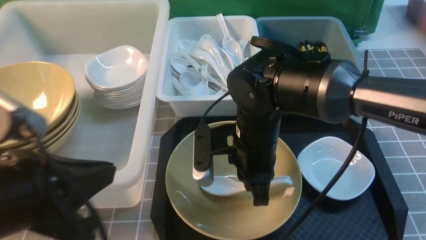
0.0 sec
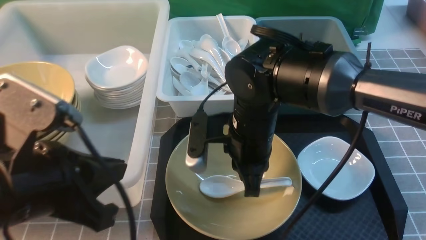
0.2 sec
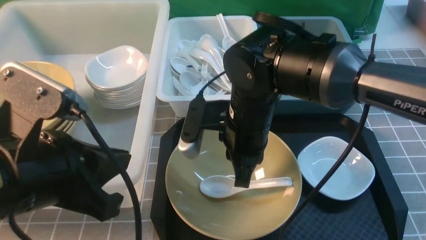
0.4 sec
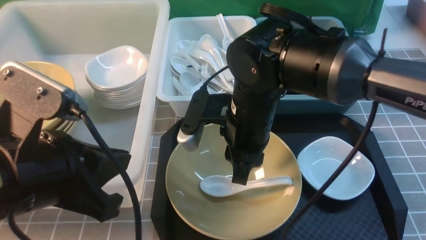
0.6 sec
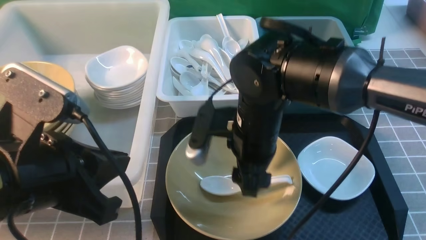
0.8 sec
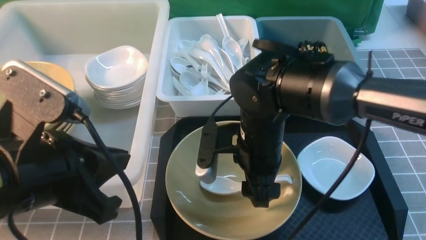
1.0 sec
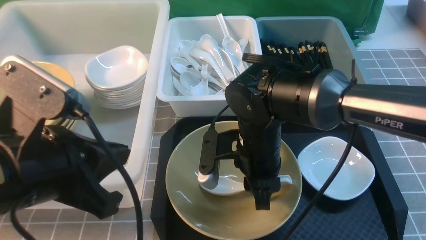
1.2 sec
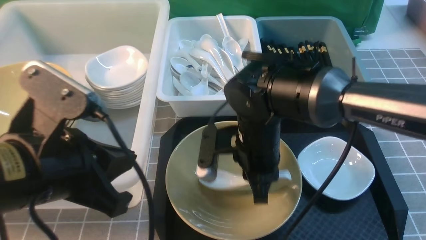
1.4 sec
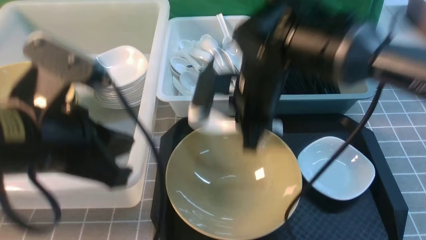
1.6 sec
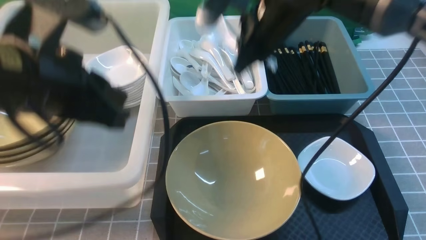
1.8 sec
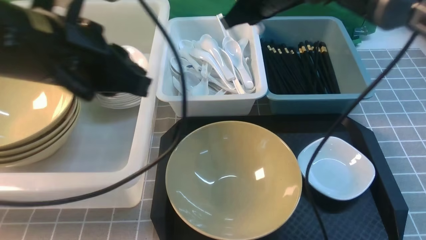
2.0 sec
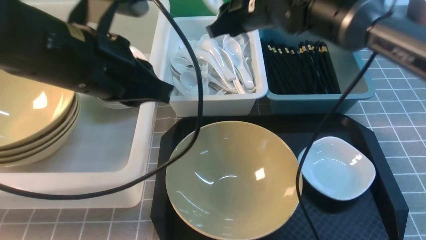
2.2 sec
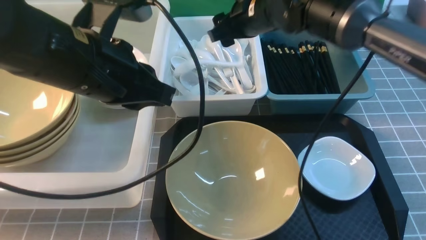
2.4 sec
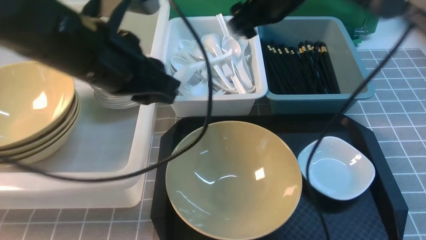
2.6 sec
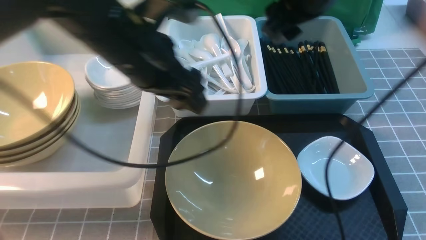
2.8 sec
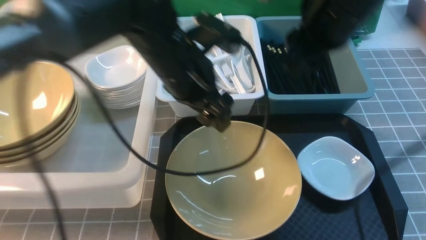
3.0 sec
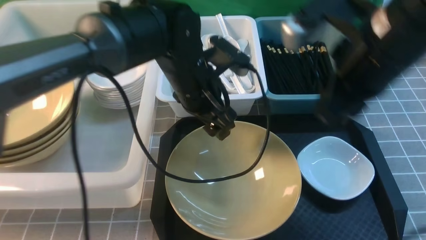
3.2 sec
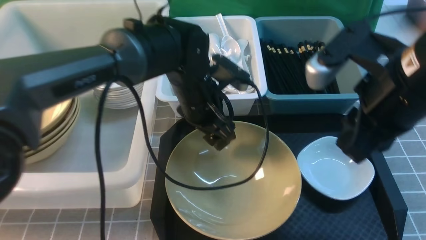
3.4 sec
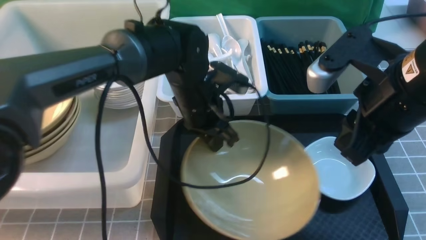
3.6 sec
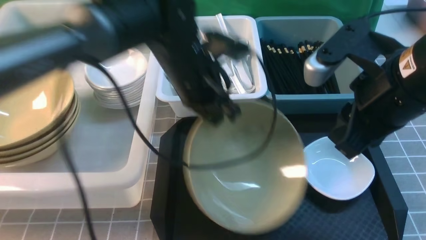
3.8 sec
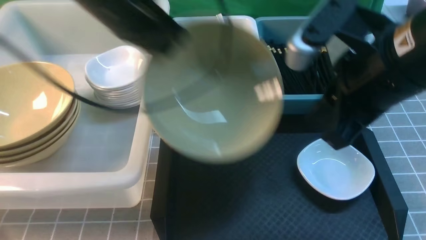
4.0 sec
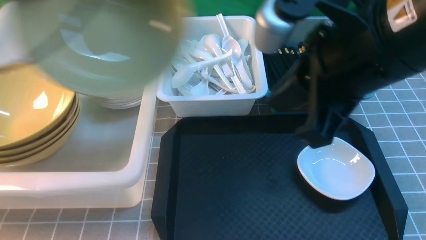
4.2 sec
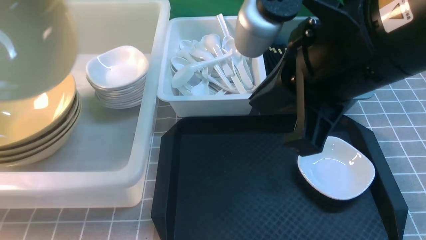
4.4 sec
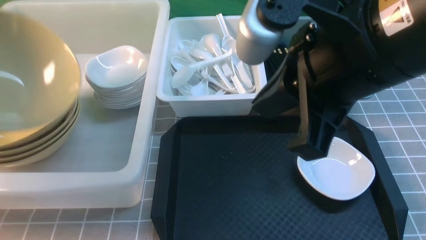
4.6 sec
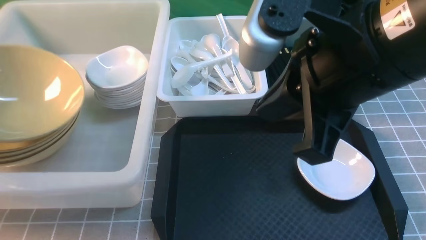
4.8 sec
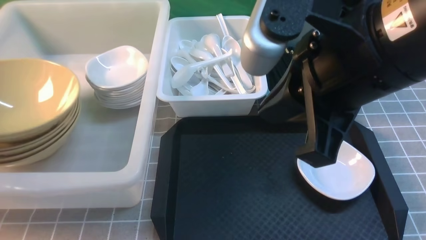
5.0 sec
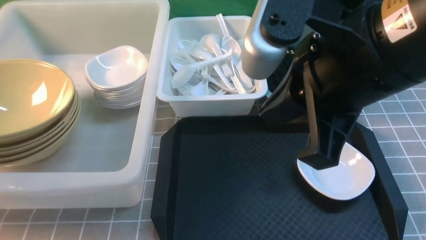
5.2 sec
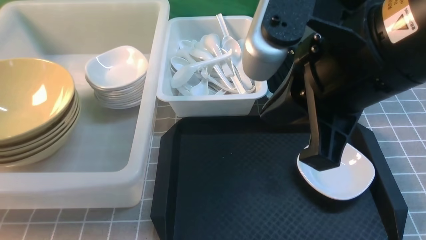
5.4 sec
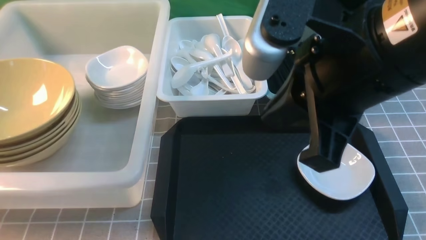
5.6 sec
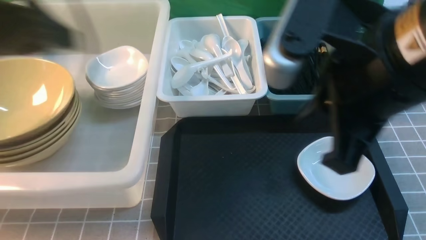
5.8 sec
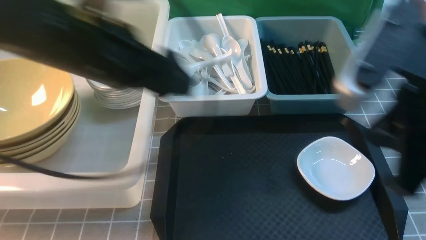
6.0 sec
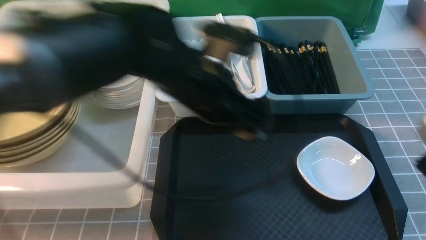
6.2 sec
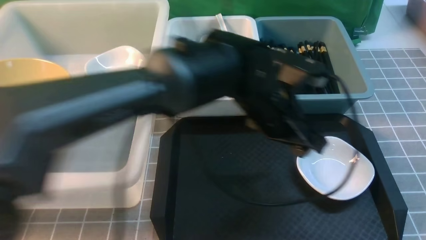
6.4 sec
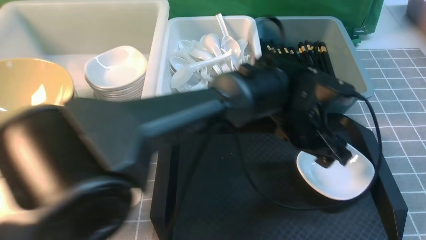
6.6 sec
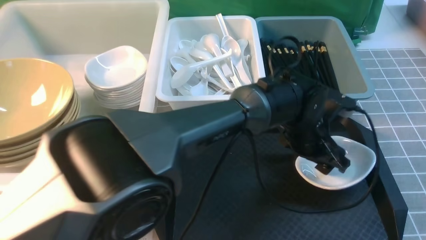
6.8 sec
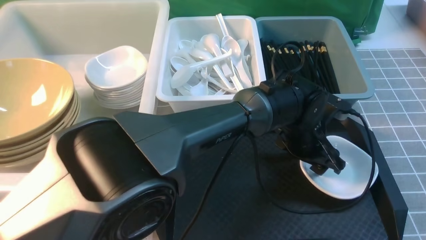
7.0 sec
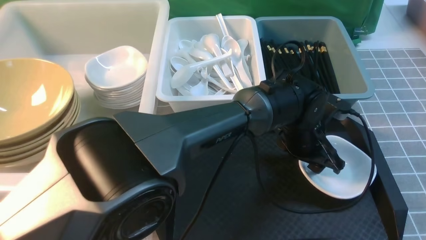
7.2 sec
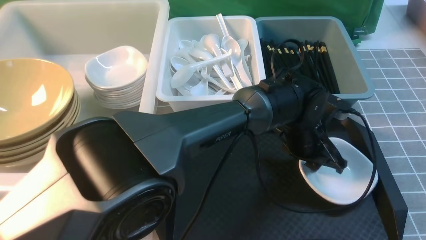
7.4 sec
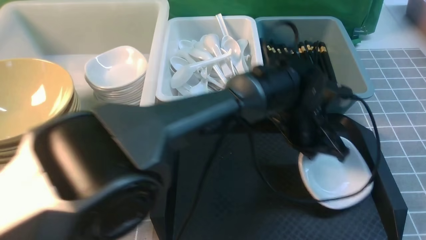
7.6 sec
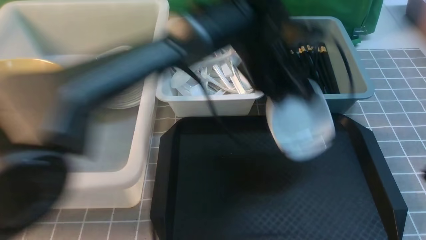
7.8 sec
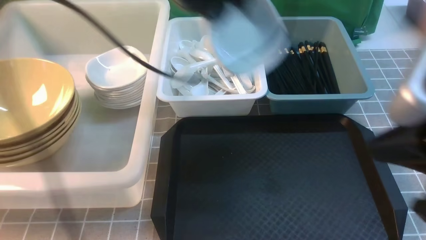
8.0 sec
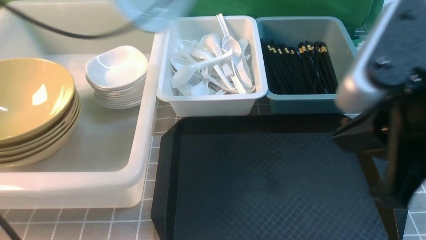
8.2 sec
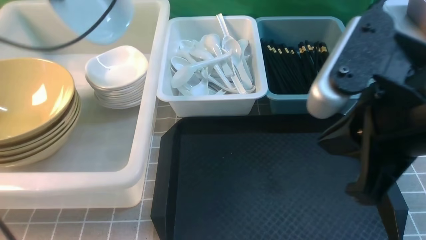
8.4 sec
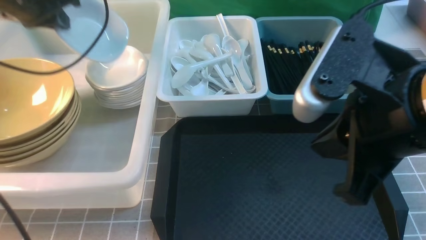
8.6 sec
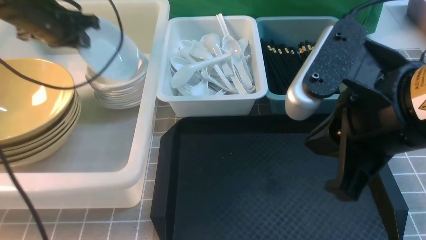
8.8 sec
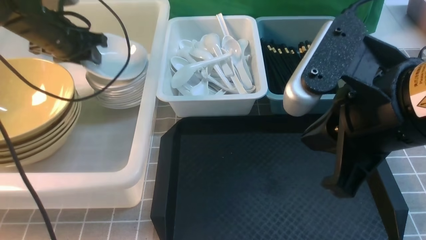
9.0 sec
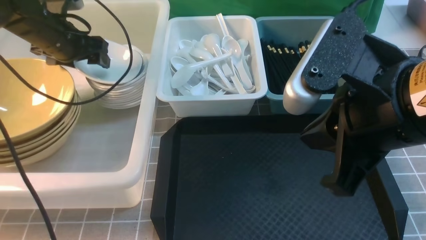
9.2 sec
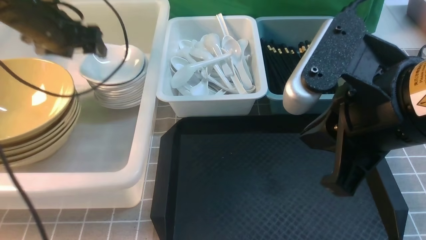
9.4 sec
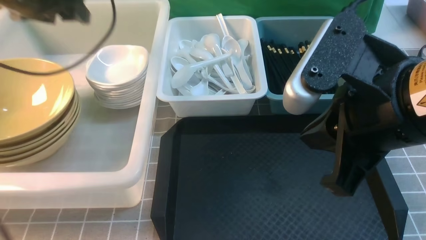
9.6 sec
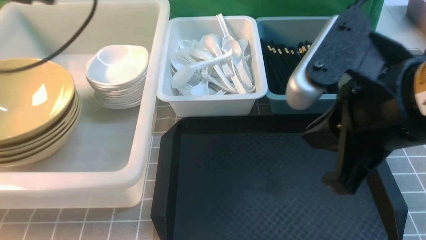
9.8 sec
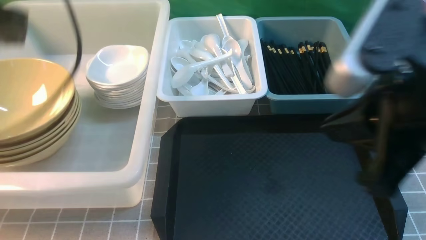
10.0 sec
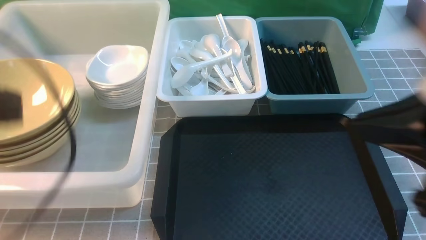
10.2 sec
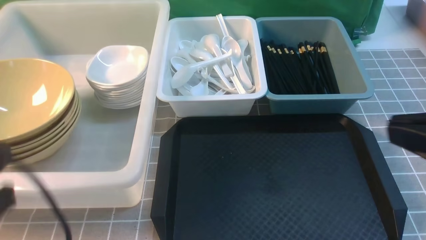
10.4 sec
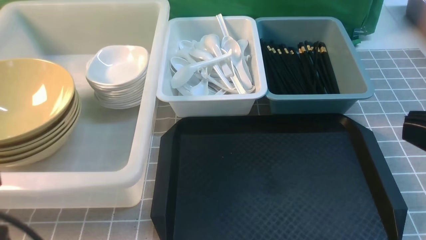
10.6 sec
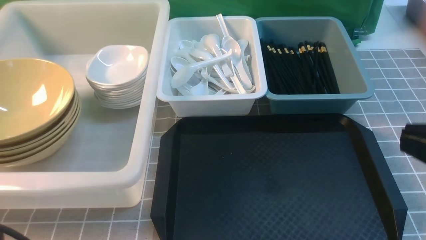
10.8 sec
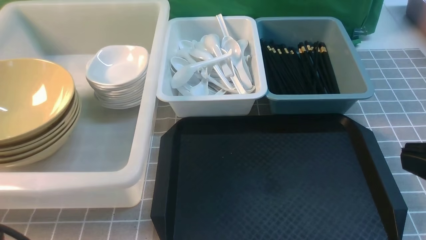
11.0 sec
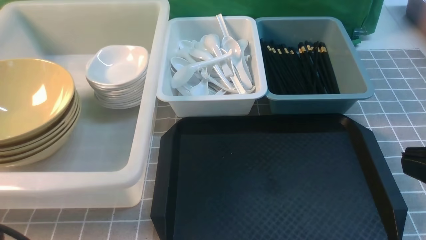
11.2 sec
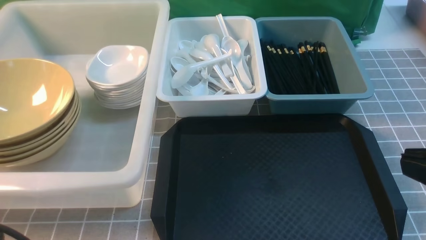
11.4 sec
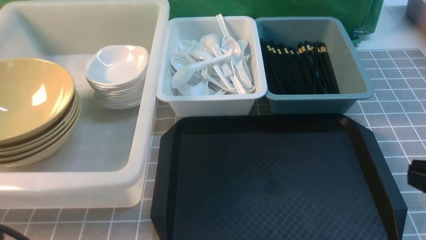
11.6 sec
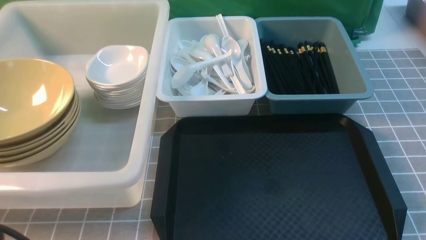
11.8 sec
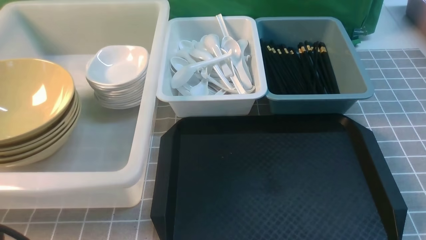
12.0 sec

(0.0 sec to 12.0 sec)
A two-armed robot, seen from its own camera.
Task of the whole recording: on grey table put chopsticks spoon bowls plates into blue grey white boxes.
Step, 0.0 sec - 1.4 sec: use the right arm to grab the soup spoon in the middle.
Step, 1.6 sec - 2.4 sec: use the right arm to put the soup spoon into the small storage box in the middle.
Step, 2.6 sec - 3.8 sec: use the left arm to grab the yellow noodle bowl on the left.
Step, 4.0 sec - 5.0 sec: use the left arm to put the noodle bowl into the large storage box on the left.
Step, 5.2 sec - 7.6 sec: use the left arm to grab the plate.
Step, 7.8 sec - 9.6 sec: use the left arm to put the plate into the large storage box on the left.
0.0 sec - 1.6 sec: The left gripper heads forward, covering roughly 5 cm; the right gripper is displaced upward and forward by some 10 cm, and opens and closes again.
1.6 sec - 3.0 sec: The left gripper moves forward and to the right, about 20 cm, and opens its fingers. The right gripper shifts some 15 cm upward and to the right, reaches approximately 10 cm forward, then returns, and opens up.
3.0 sec - 4.4 sec: The right gripper is displaced backward by approximately 10 cm, and closes its fingers. The left gripper goes approximately 30 cm to the left, and closes up.
4.4 sec - 6.0 sec: The right gripper heads to the right, covering some 10 cm; the left gripper moves to the right, roughly 25 cm, and opens its fingers.
6.0 sec - 7.6 sec: The right gripper goes some 10 cm to the right and backward; the left gripper goes approximately 25 cm to the right and downward, and closes up.
7.6 sec - 9.0 sec: The left gripper travels to the left by roughly 40 cm, and opens up. The right gripper travels to the left and forward by some 15 cm.
9.0 sec - 10.4 sec: The left gripper travels backward by some 35 cm, and closes its fingers, while the right gripper travels to the right and backward by some 10 cm.
10.4 sec - 12.0 sec: The right gripper moves downward and to the right, roughly 15 cm.

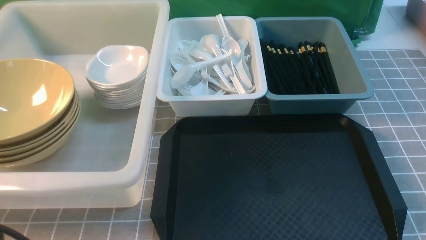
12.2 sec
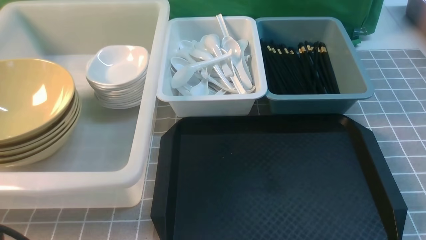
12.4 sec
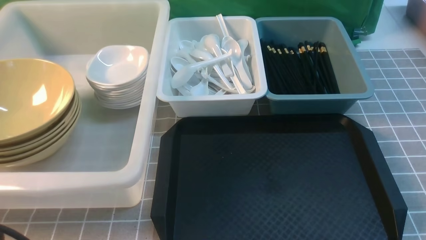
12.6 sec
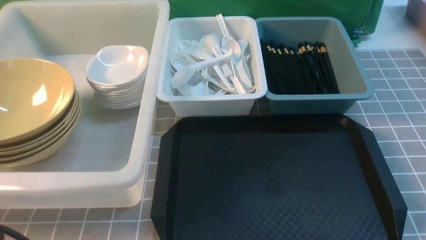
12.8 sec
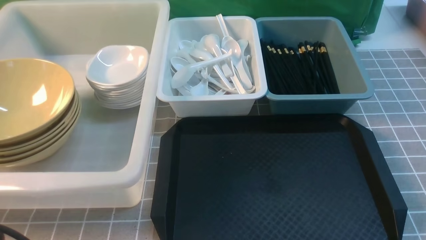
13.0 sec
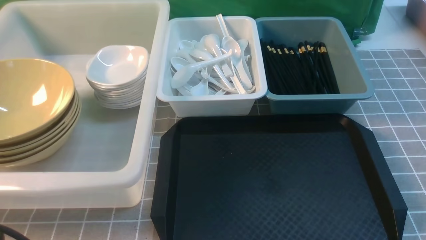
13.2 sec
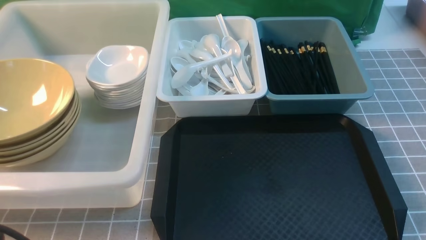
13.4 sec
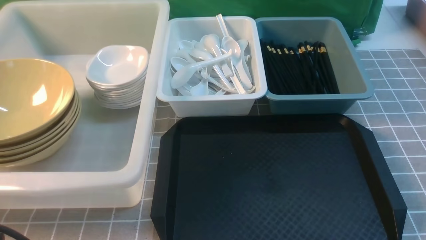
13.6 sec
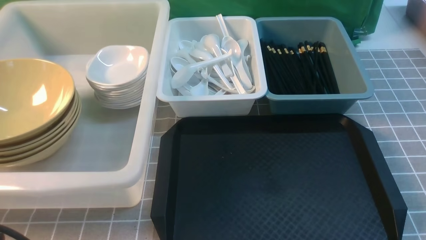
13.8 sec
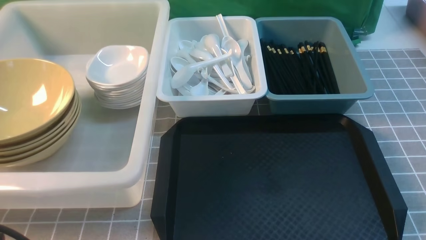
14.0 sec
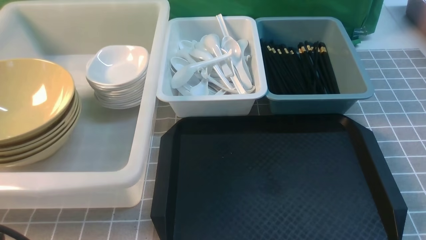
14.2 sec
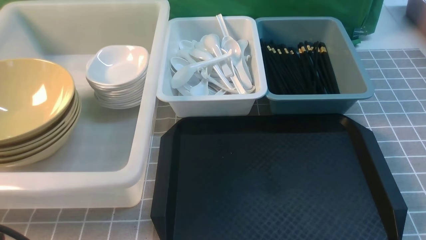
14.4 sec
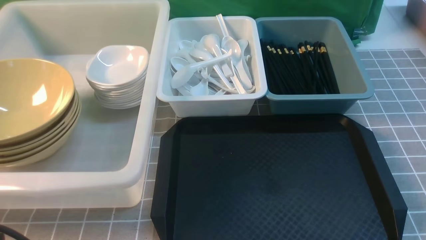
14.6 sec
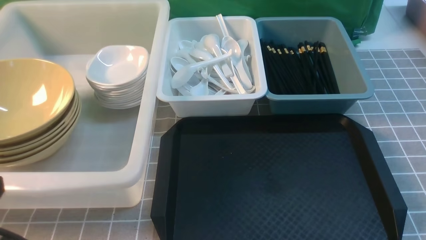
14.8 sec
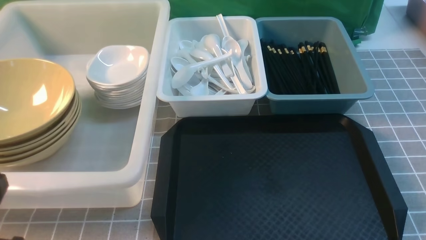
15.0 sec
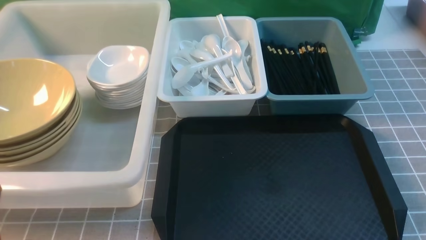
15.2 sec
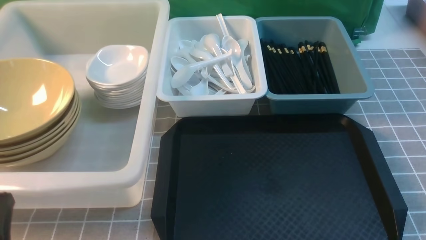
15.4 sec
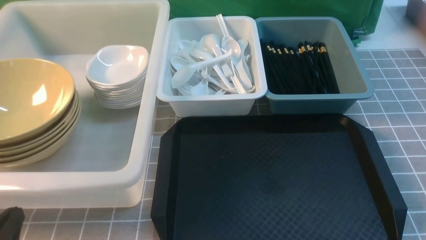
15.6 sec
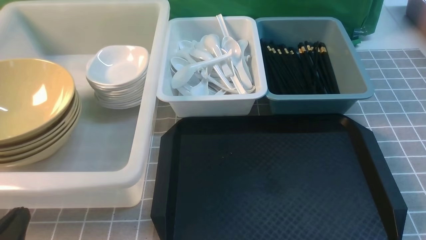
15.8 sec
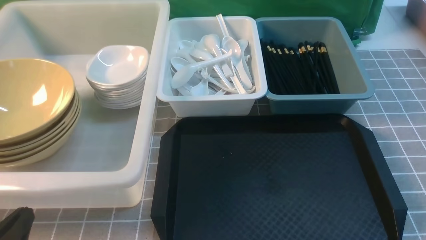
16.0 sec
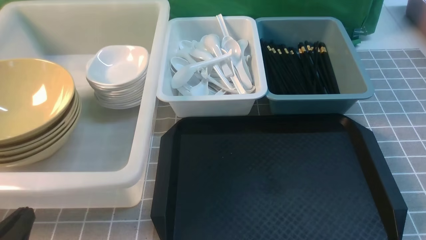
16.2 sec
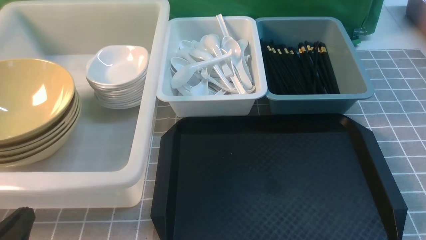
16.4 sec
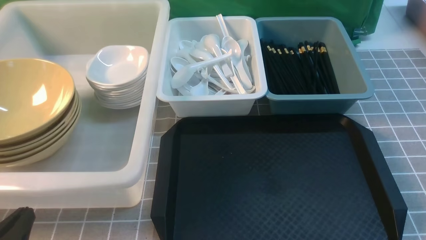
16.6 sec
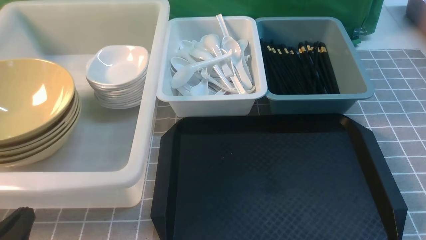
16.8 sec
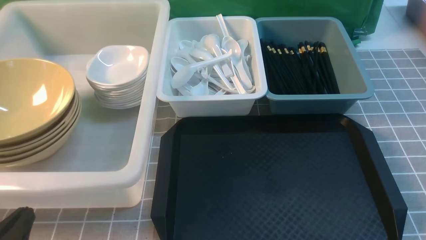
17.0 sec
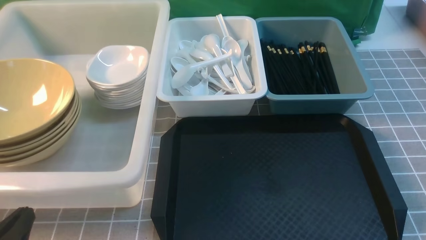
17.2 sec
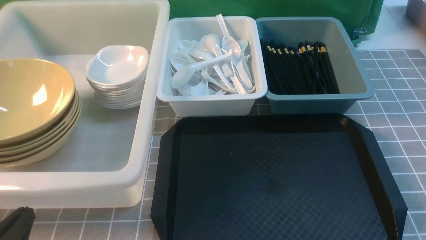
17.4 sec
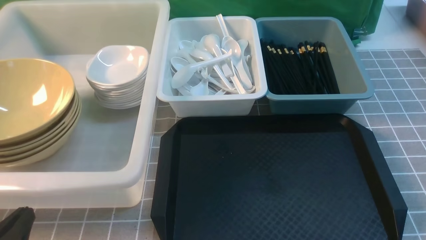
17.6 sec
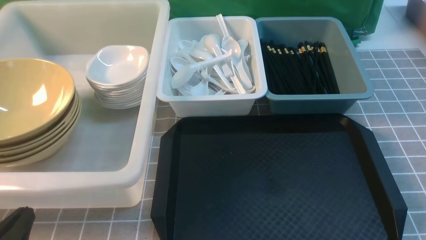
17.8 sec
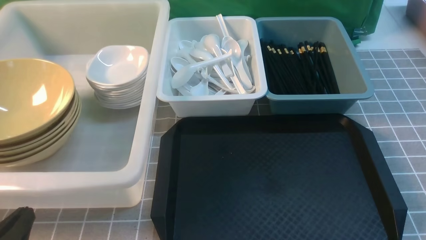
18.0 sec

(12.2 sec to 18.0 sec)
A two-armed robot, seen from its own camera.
Task of the whole recording: on grey table put chopsticks spoon bowls plates into blue grey white boxes.
15.0 sec - 16.6 sec: The left gripper travels downward by about 10 cm.
16.6 sec - 18.0 sec: Neither gripper changes place.
